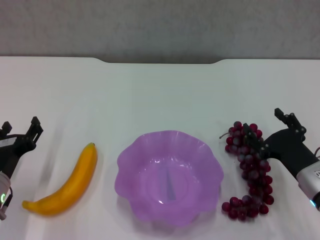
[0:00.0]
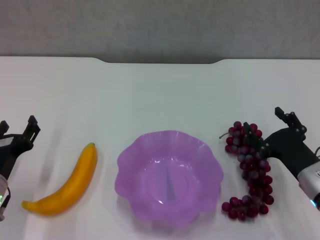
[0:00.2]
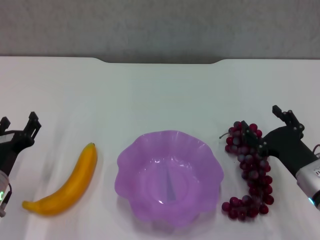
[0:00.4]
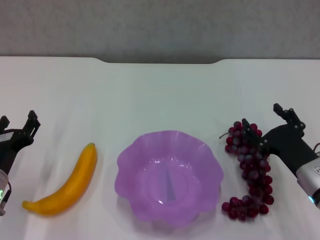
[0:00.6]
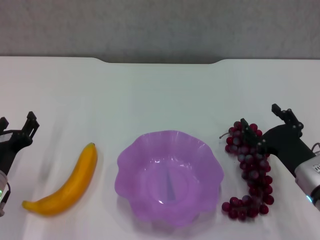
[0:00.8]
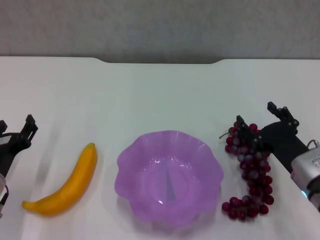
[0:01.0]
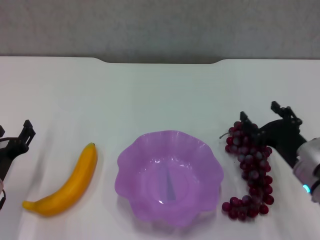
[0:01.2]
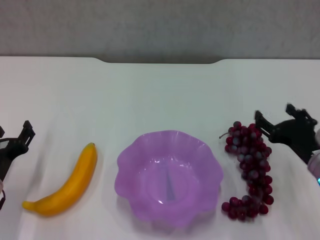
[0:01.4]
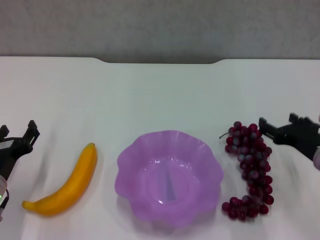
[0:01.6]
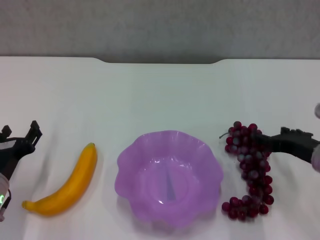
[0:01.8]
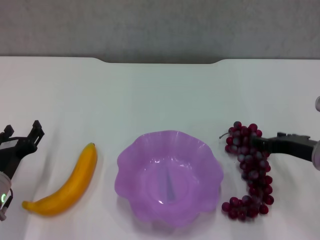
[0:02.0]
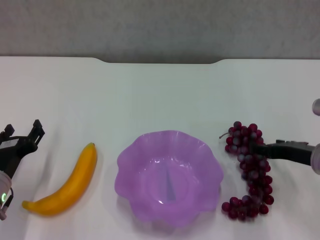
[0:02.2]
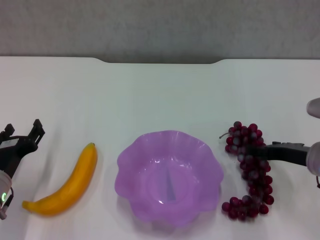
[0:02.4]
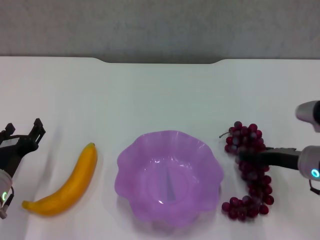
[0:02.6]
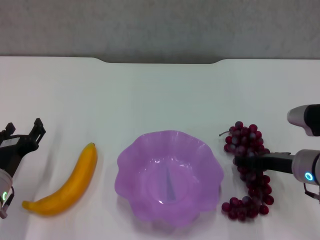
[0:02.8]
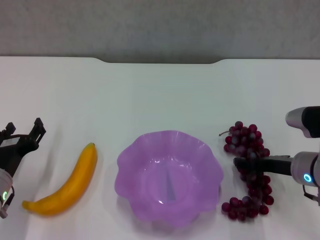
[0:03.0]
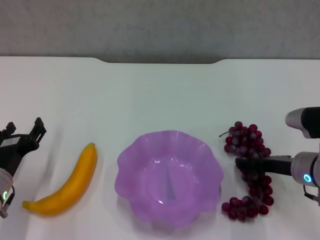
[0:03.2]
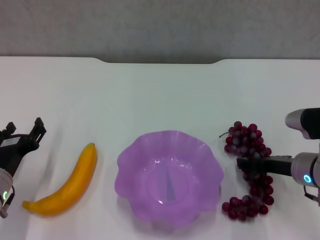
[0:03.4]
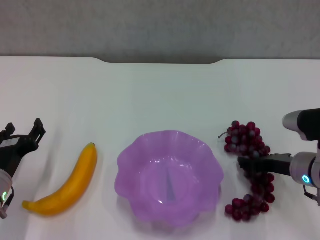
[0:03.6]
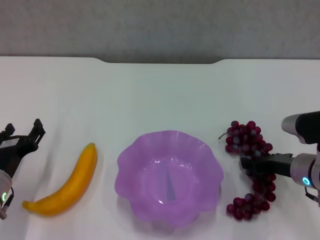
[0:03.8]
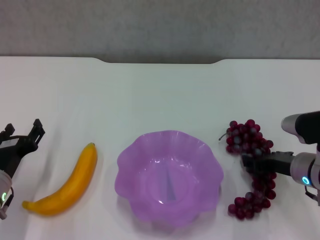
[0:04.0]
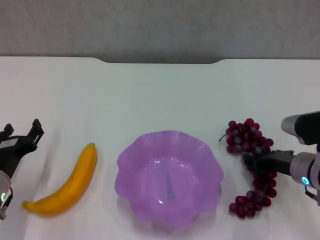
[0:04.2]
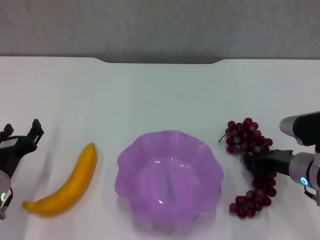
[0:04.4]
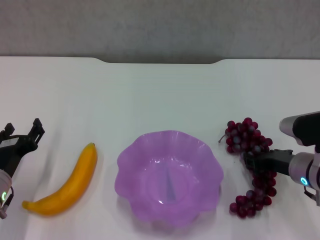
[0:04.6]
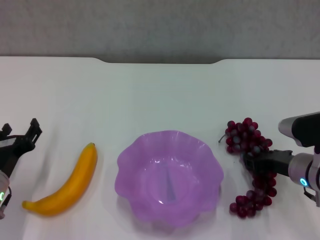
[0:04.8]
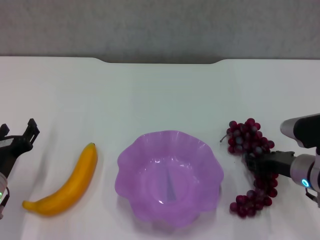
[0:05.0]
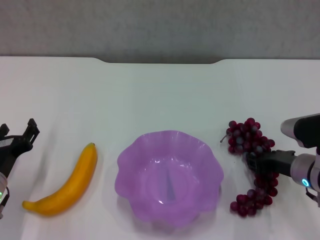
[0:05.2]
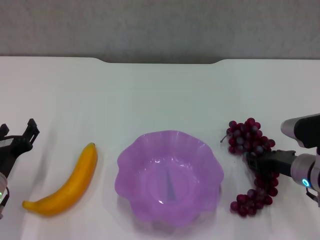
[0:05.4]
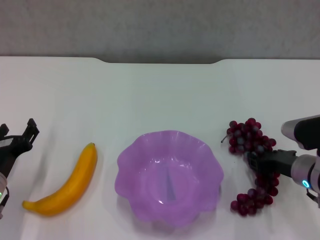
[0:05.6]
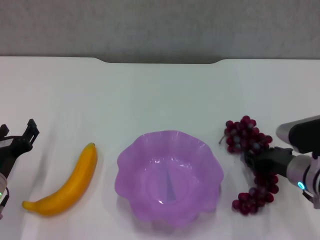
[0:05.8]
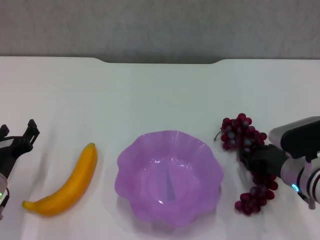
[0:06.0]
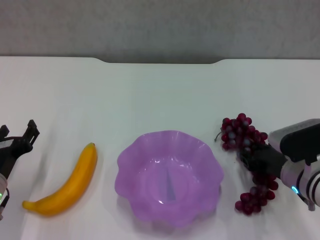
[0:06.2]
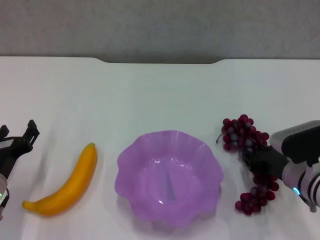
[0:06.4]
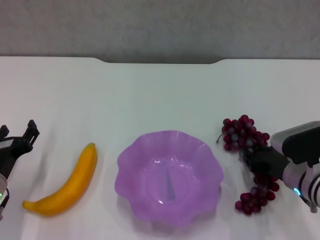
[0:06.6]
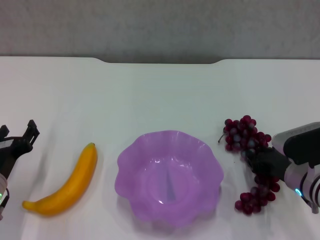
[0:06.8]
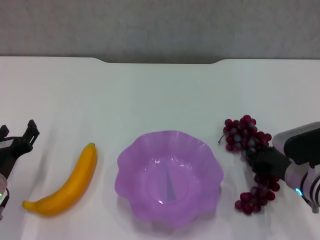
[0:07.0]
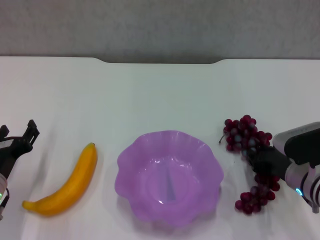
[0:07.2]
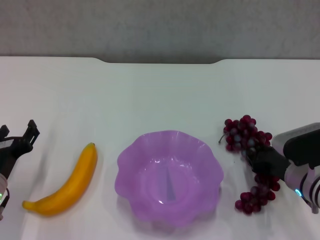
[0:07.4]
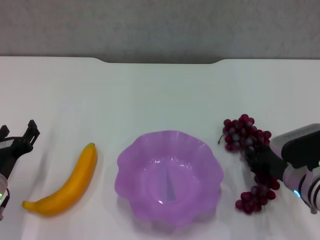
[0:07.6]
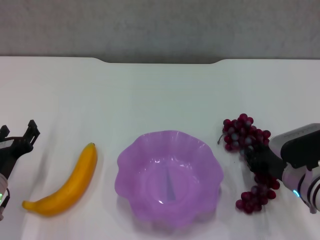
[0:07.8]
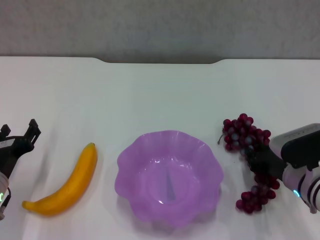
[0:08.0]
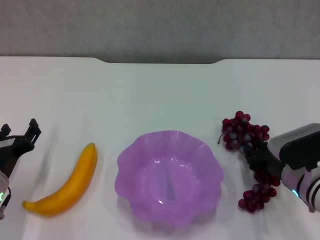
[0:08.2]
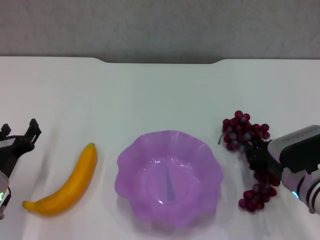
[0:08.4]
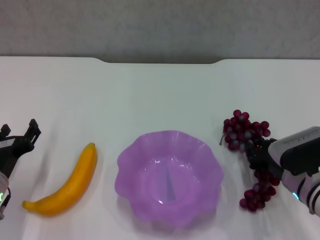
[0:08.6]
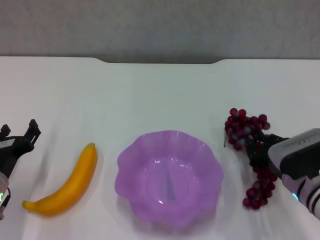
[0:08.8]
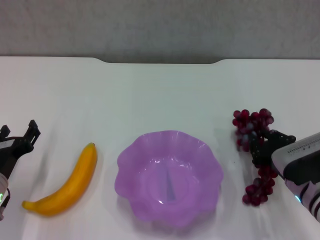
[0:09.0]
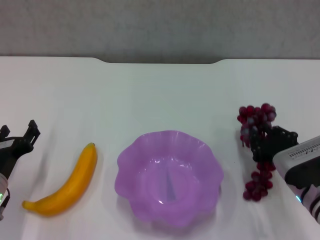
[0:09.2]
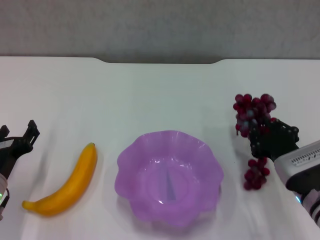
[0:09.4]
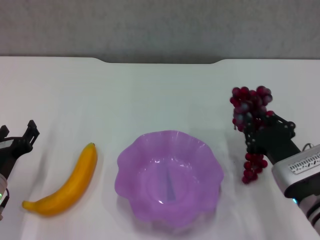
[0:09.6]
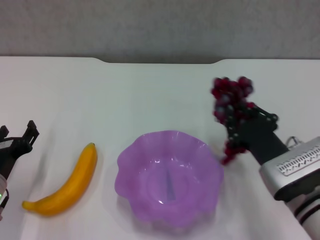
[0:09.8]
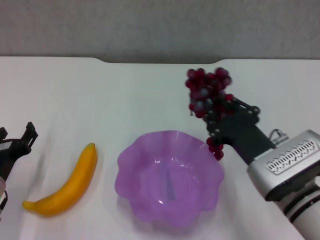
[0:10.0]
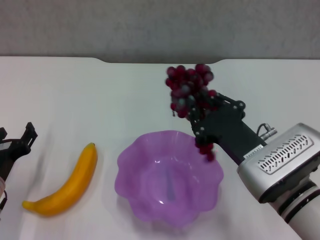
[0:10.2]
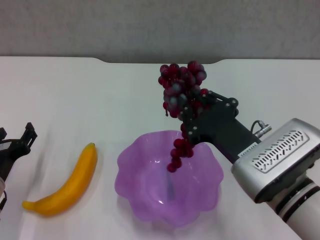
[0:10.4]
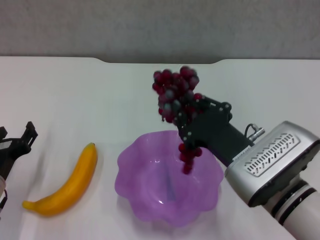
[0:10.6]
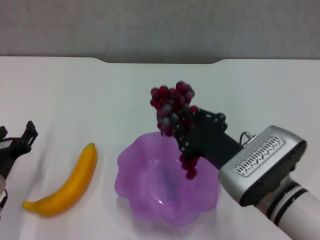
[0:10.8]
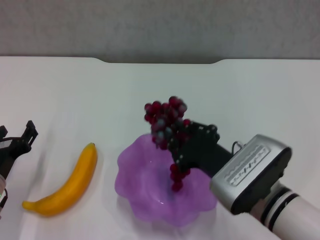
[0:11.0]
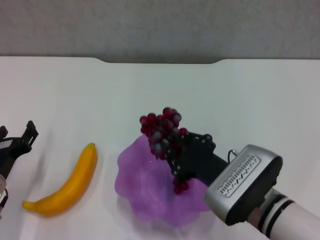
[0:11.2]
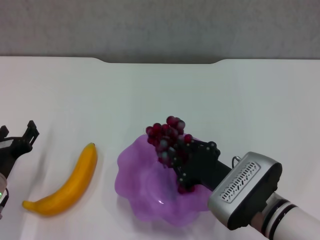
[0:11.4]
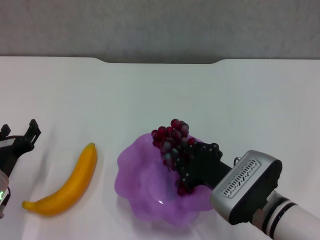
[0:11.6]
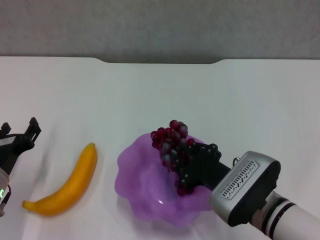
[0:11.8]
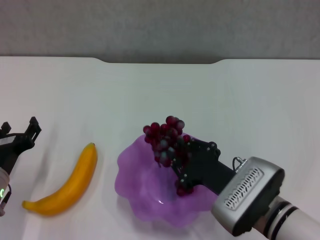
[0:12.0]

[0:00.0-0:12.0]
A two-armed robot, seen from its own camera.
Step, 0:00.0 to 0:03.6: Grasp the grape with right gripper.
0:00.0 to 0:01.6: The right gripper heads upward, covering approximately 5 cm.
0:03.0 to 0:06.0: The grippers stay close to where they were, moving slightly.
0:06.0 to 0:07.6: Both grippers stay put.
0:07.6 to 0:09.0: The grippers stay close to where they were, moving slightly.
0:09.0 to 0:10.4: The right gripper moves upward and to the left, about 15 cm.
0:10.4 to 0:12.0: The right gripper shifts about 5 cm downward.

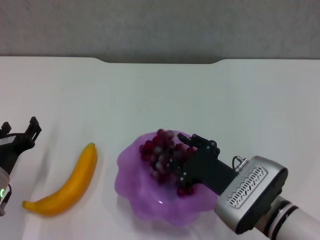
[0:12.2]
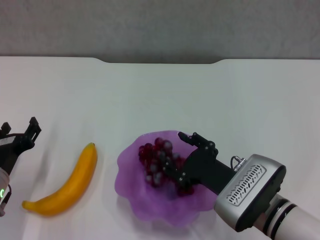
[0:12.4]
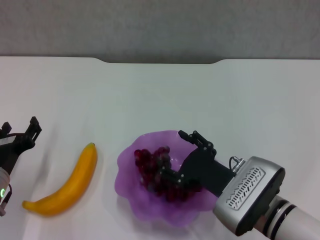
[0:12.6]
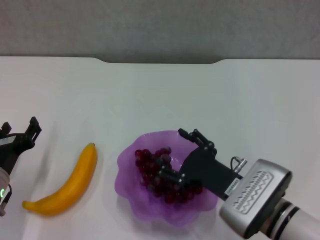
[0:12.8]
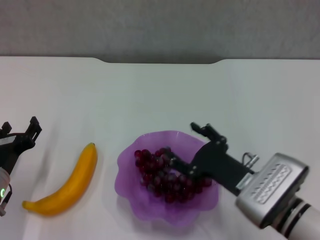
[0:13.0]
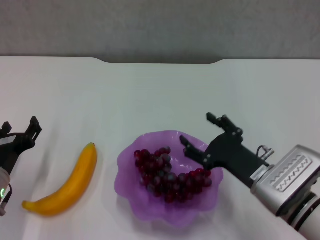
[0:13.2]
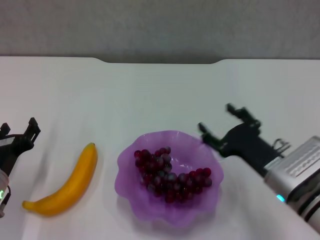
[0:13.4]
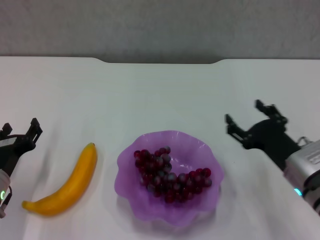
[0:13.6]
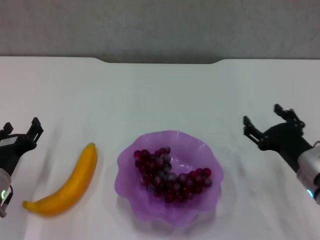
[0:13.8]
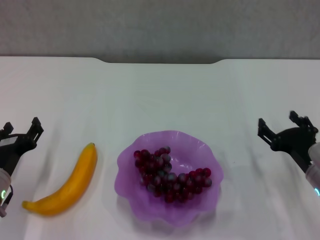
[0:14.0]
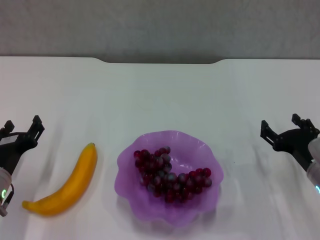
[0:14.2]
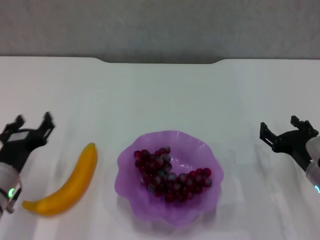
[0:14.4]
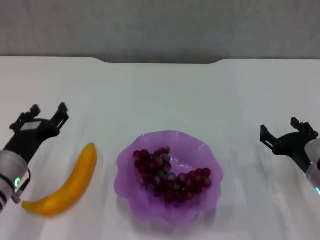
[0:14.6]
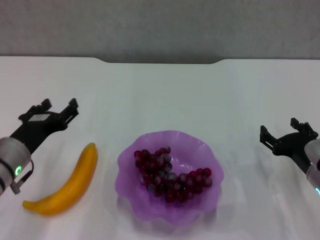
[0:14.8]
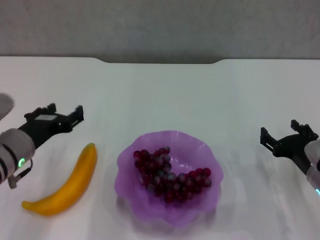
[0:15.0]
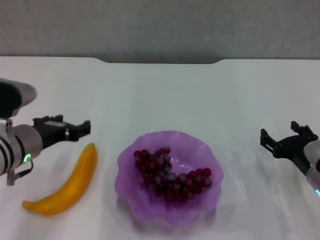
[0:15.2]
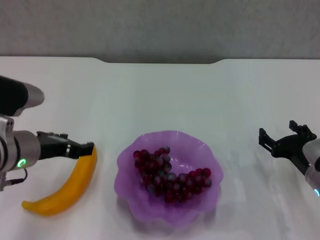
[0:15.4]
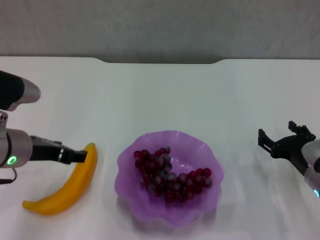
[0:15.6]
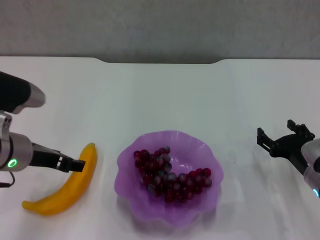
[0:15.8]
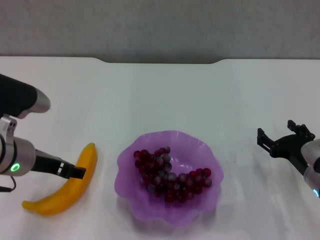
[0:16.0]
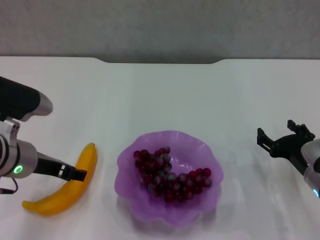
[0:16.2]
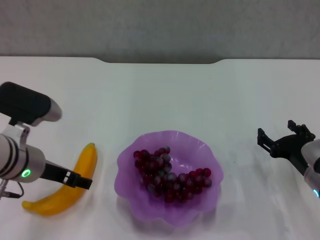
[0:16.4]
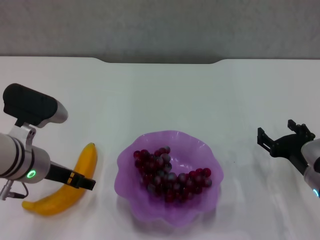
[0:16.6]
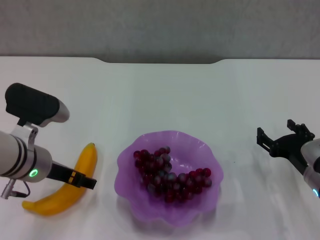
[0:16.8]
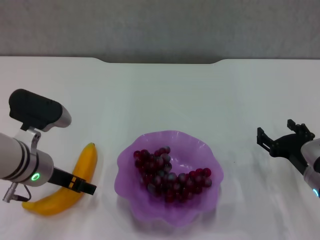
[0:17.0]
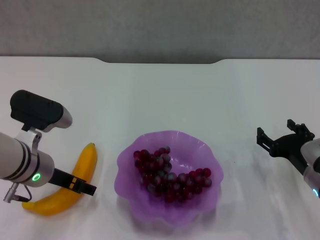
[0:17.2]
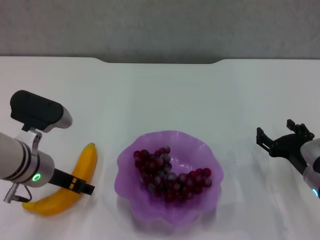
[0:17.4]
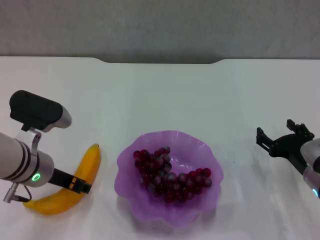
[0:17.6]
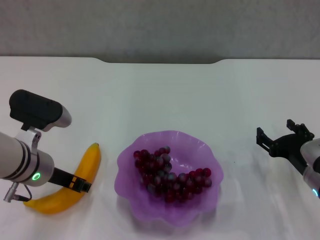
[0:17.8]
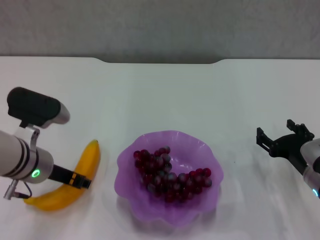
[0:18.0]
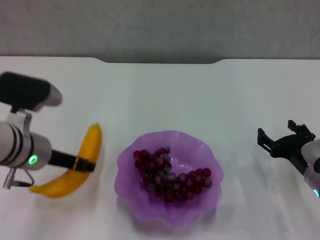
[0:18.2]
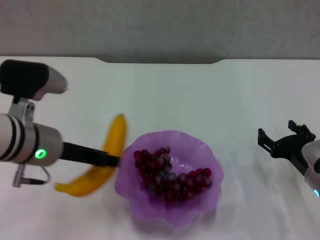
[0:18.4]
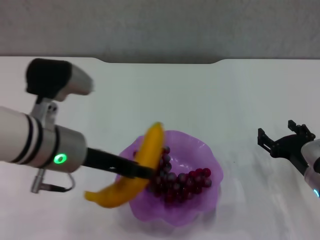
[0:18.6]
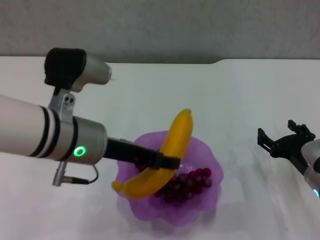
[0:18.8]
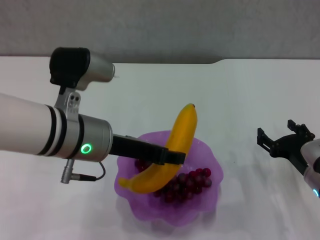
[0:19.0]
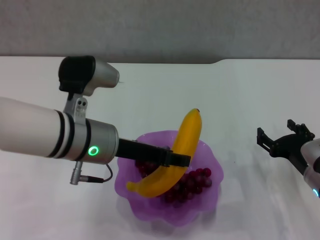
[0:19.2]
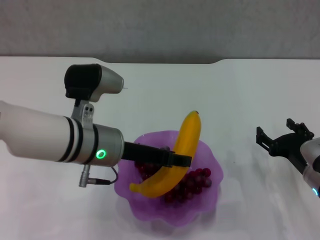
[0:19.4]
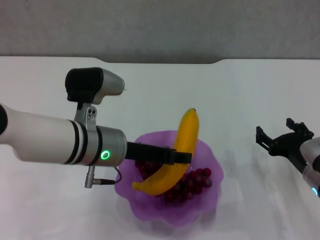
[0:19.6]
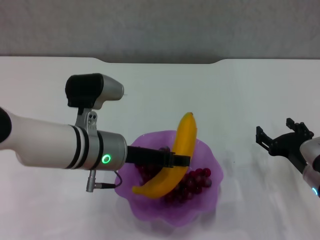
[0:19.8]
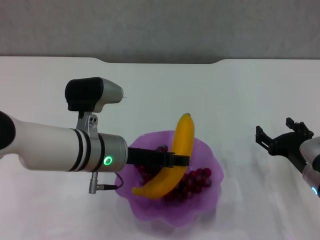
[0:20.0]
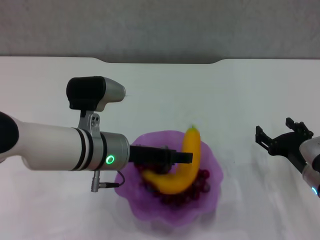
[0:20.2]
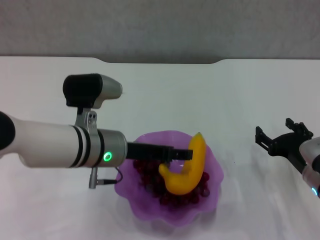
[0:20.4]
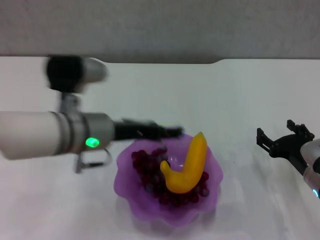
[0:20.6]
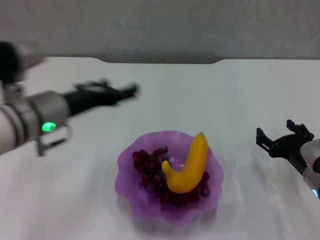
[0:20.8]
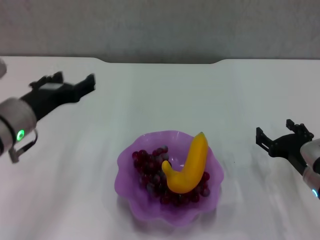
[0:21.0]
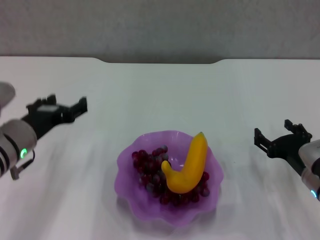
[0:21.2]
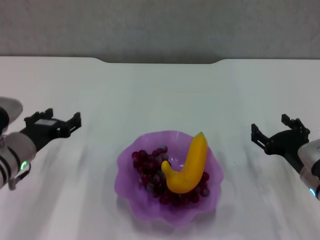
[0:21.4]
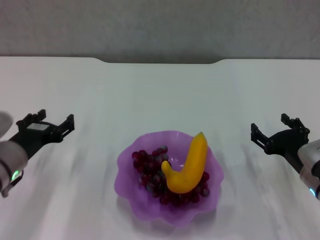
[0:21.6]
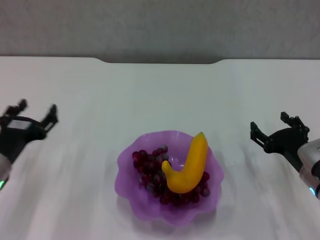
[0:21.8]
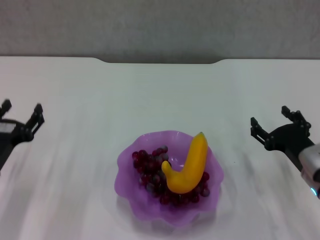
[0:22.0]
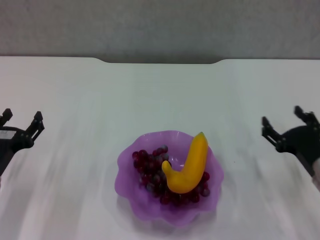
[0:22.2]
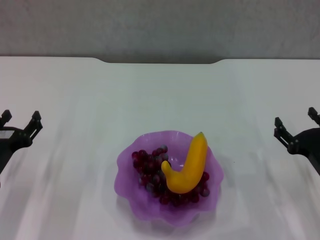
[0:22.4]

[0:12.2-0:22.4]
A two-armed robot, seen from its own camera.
Step, 0:13.2 to 0:17.6: Grasp the banana with left gripper.
Step, 0:17.8 to 0:20.6: Place the banana in the purple plate with left gripper.
0:12.2 to 0:13.6: The right gripper moves to the right, about 10 cm, and opens its fingers.
0:13.6 to 0:15.2: The right gripper shifts by some 5 cm; the left gripper travels upward and to the right by roughly 10 cm.
0:16.6 to 0:18.0: The left gripper closes up.
0:18.0 to 0:19.4: The left gripper moves to the right, roughly 10 cm.
0:19.4 to 0:21.0: The left gripper heads to the left, covering some 10 cm, and opens.
0:21.0 to 0:22.4: The left gripper travels downward and to the left by about 10 cm.
